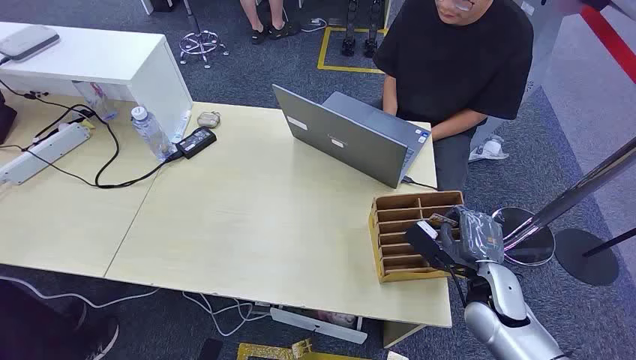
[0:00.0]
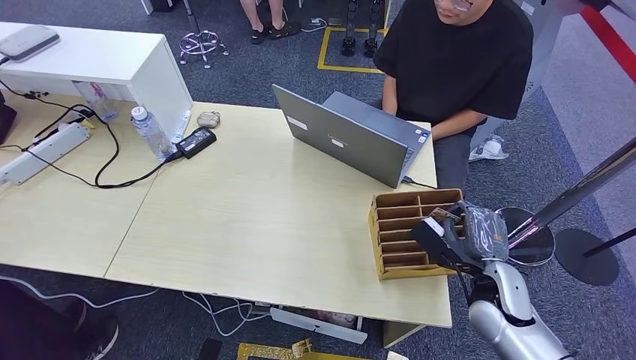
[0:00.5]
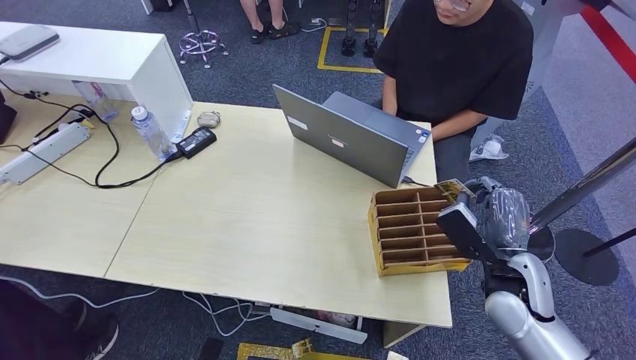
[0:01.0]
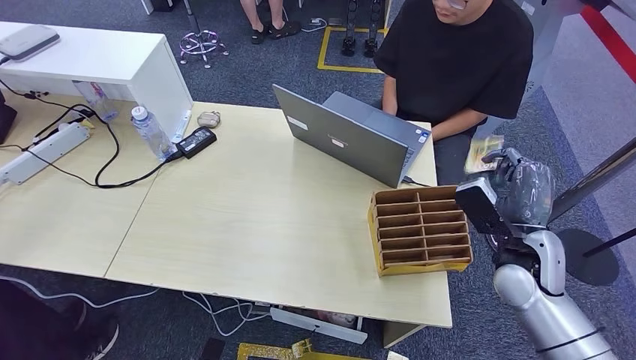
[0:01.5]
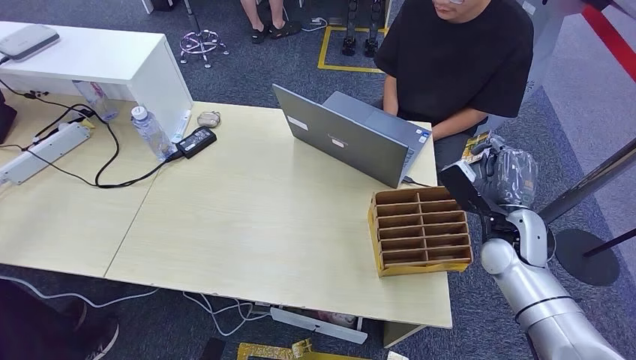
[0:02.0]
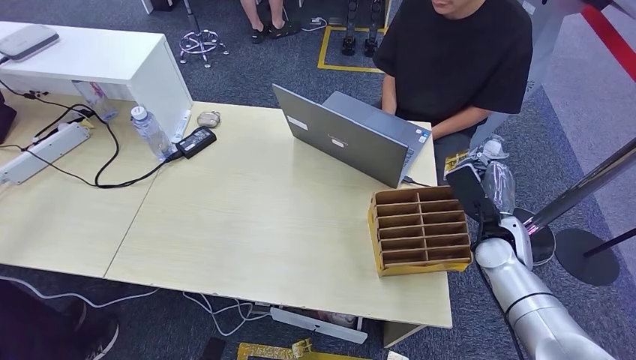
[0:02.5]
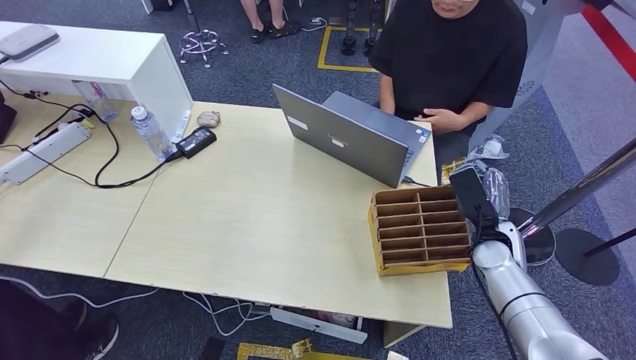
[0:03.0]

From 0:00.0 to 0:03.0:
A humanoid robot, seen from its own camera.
Step, from 0:00.0 to 0:01.5: Pick up the room card from the card holder.
Step, from 0:02.0 to 0:03.0: Hand the room card to the target.
From 0:01.5 to 0:03.0: The right hand shifts some 10 cm downward and forward.

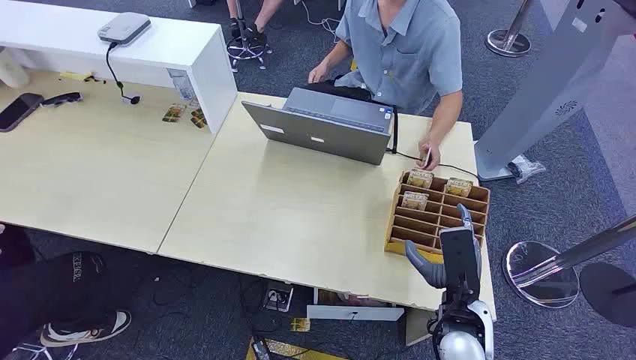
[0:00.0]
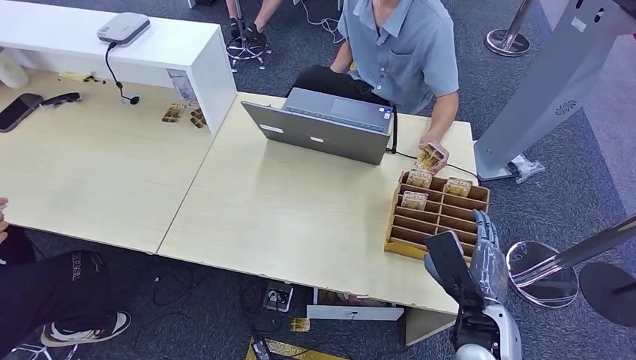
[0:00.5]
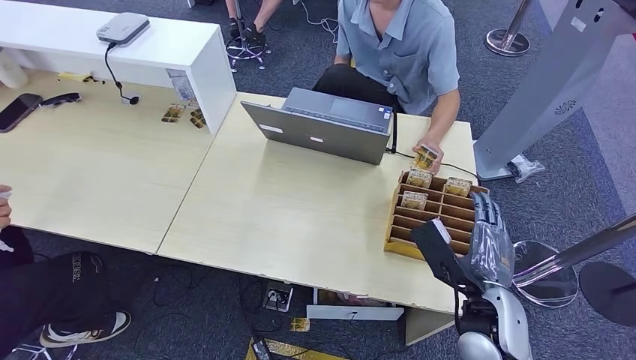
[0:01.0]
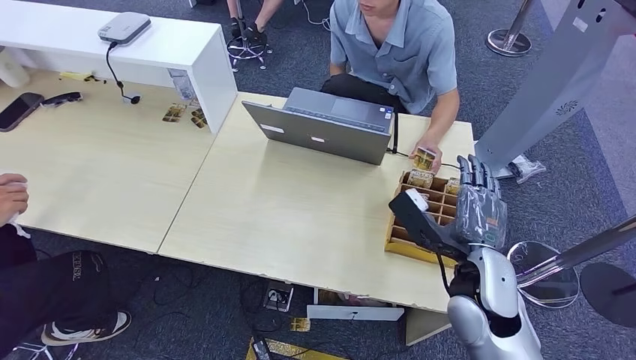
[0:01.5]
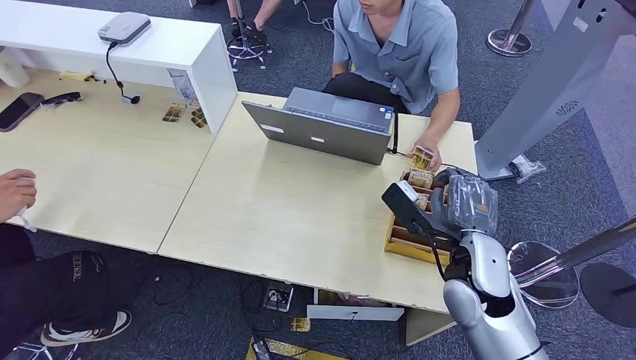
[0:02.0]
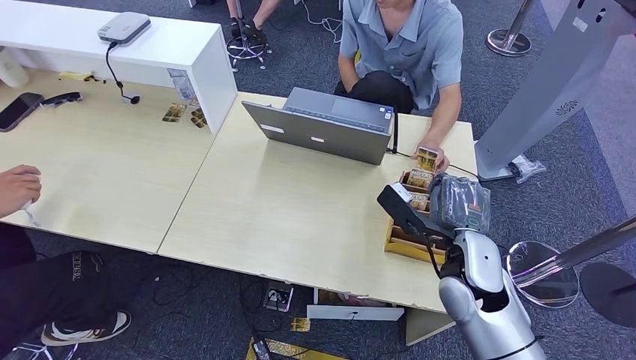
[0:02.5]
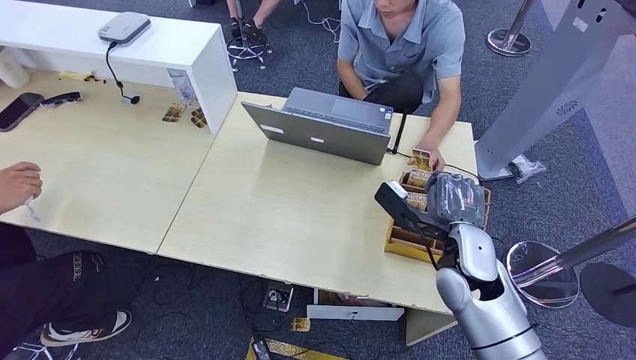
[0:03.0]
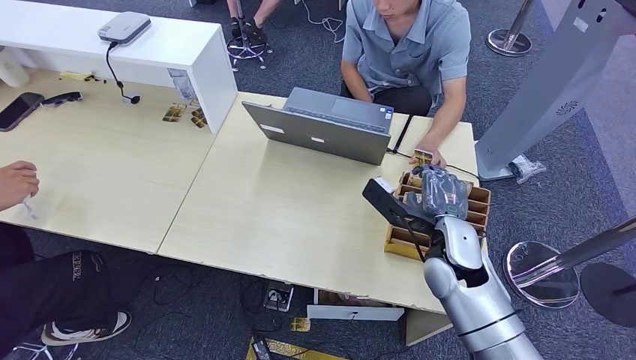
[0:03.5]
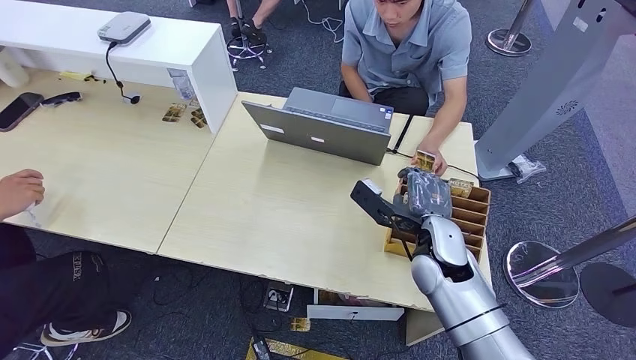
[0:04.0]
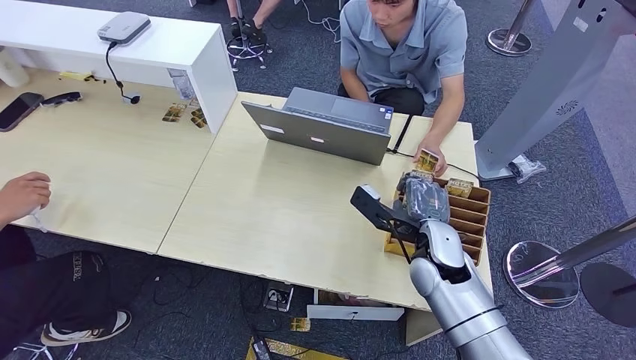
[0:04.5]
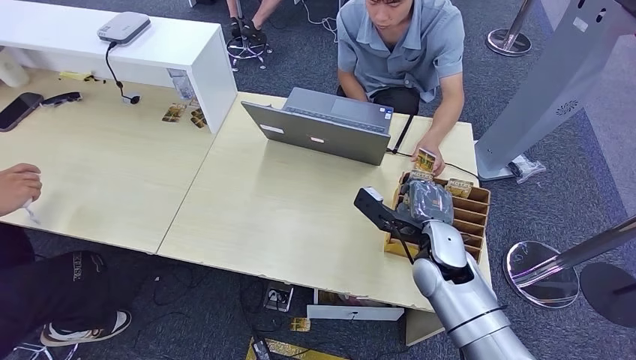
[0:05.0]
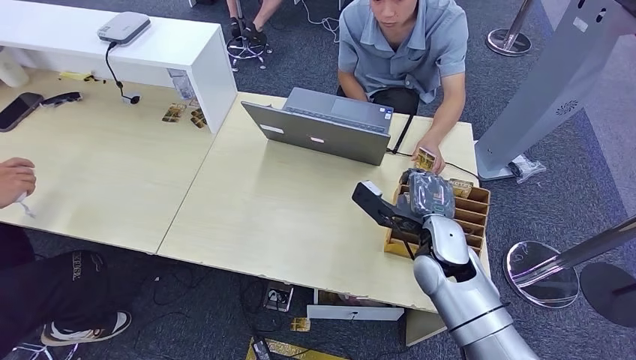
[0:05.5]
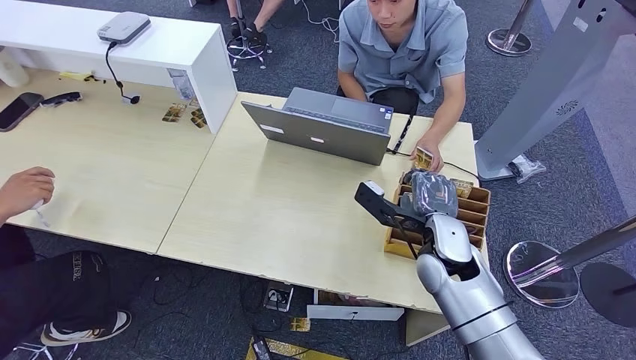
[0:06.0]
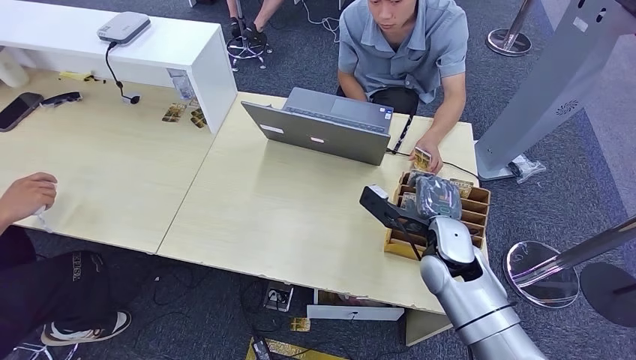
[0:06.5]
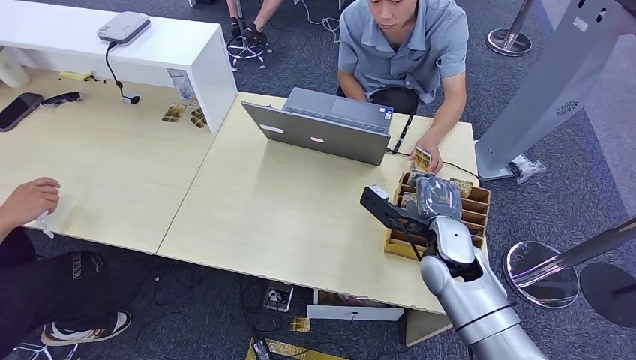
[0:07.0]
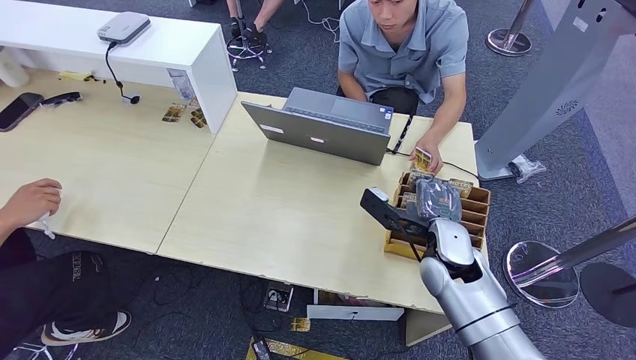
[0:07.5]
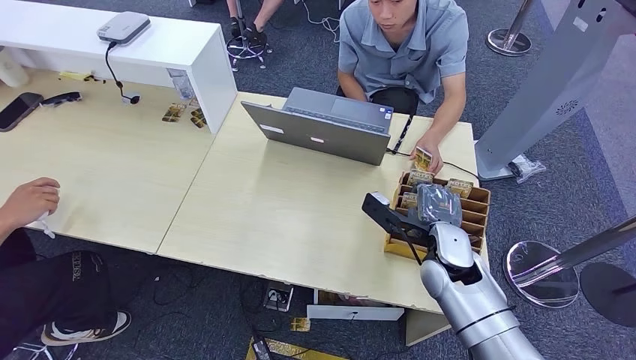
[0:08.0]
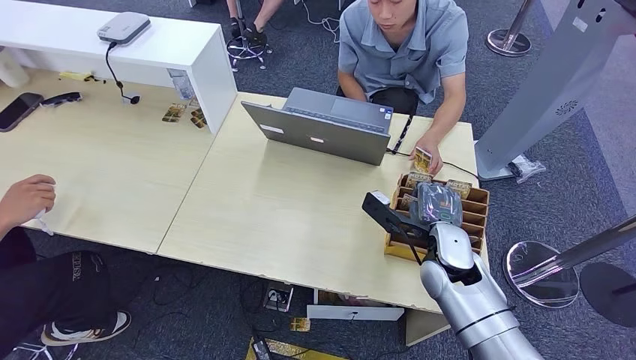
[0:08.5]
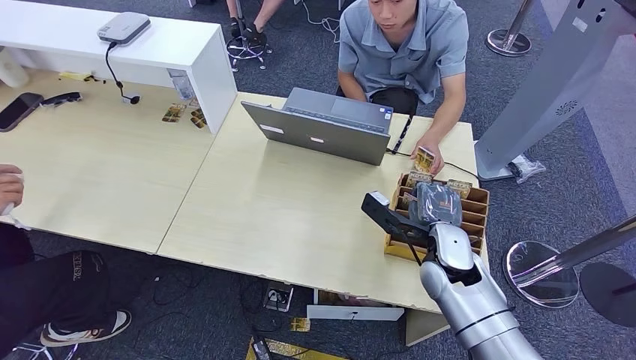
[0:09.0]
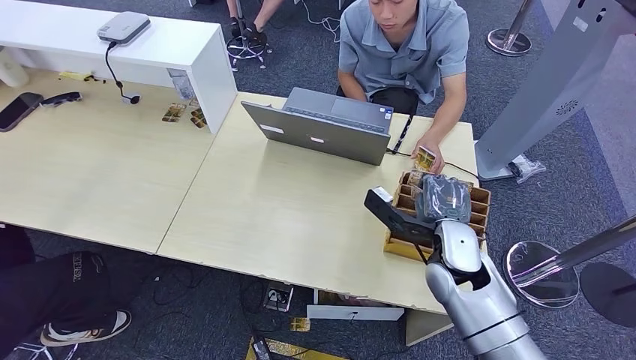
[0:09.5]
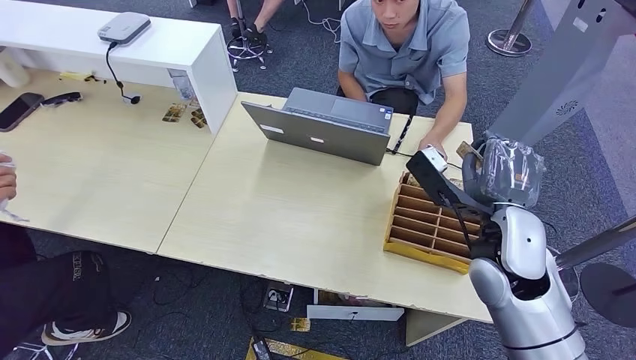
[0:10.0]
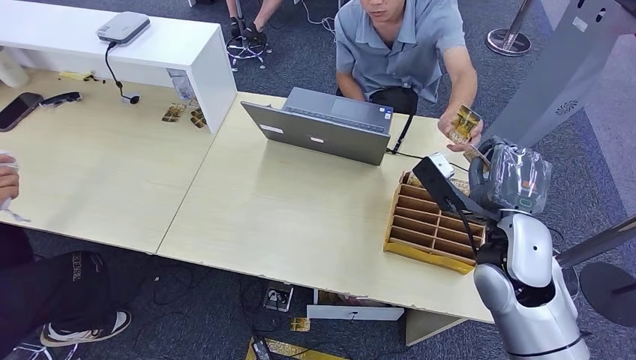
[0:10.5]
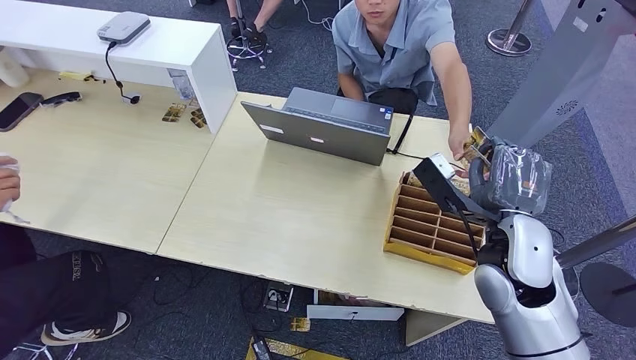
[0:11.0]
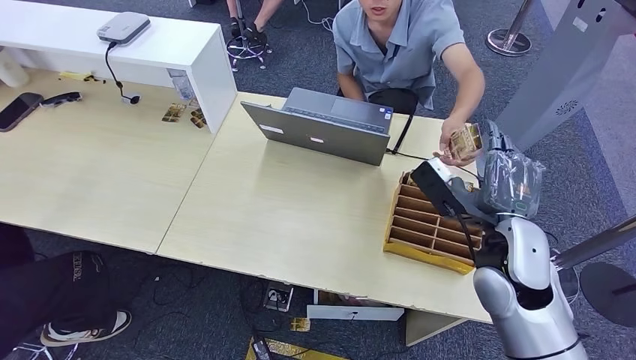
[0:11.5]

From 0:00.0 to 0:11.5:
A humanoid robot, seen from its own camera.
Step, from 0:00.0 to 0:10.5: Pick up the room card from the card holder.
Step, from 0:11.0 to 0:11.5: Hand the room card to the target.
From 0:02.0 to 0:04.0: The right hand changes place by approximately 5 cm.
From 0:04.0 to 0:09.5: The hands make only small movements.
From 0:09.5 to 0:11.5: The right hand shifts some 5 cm upward.

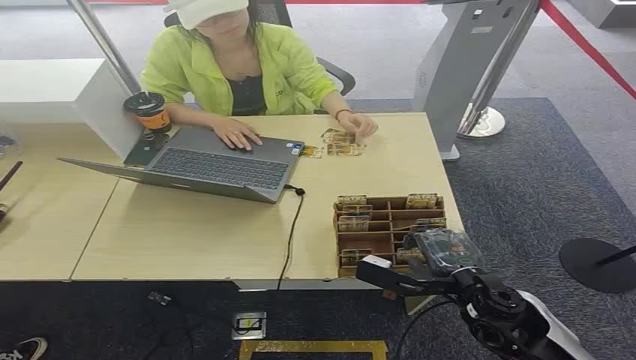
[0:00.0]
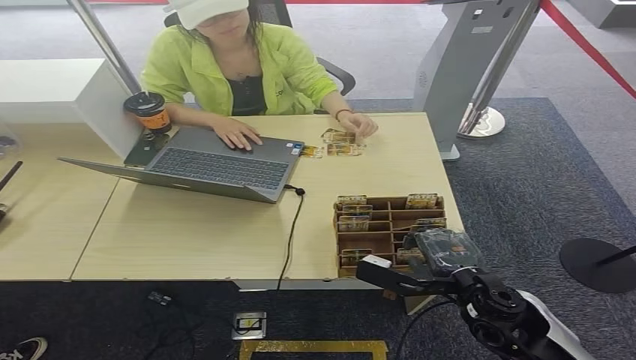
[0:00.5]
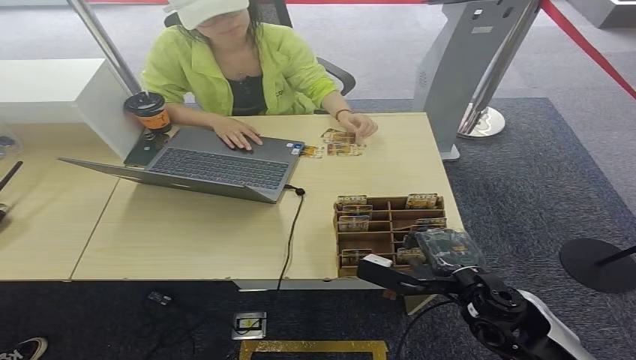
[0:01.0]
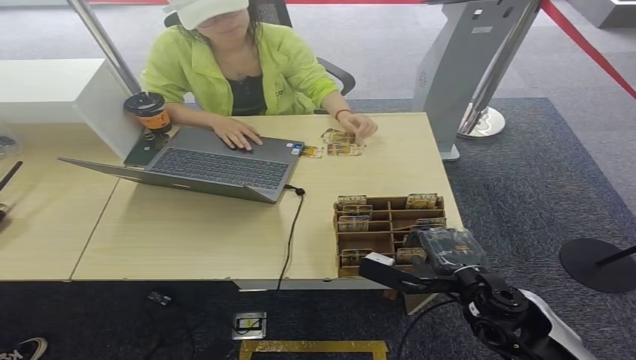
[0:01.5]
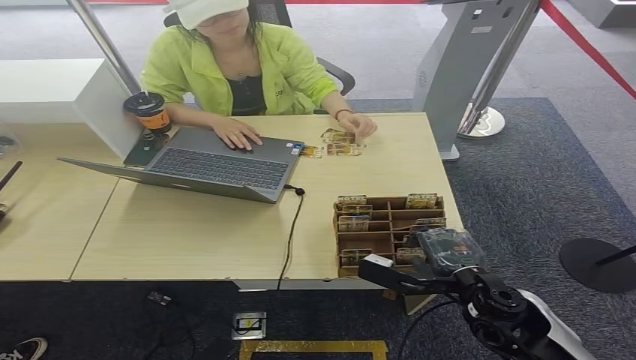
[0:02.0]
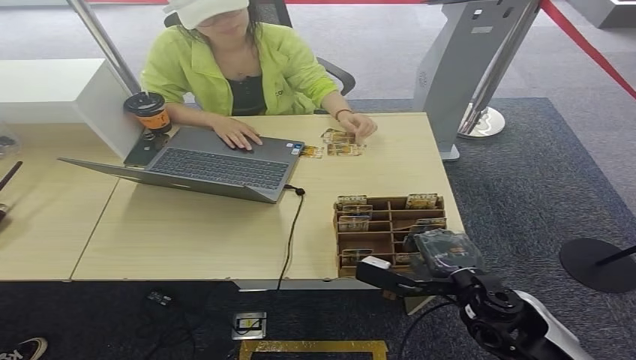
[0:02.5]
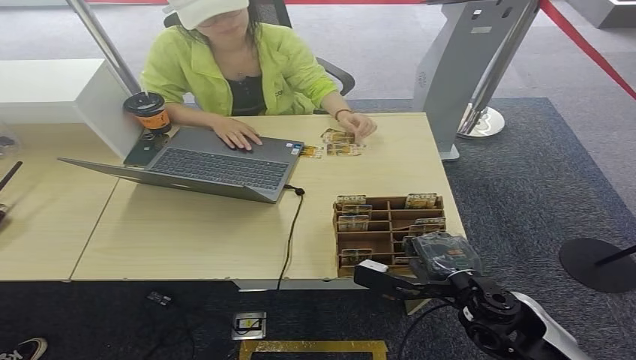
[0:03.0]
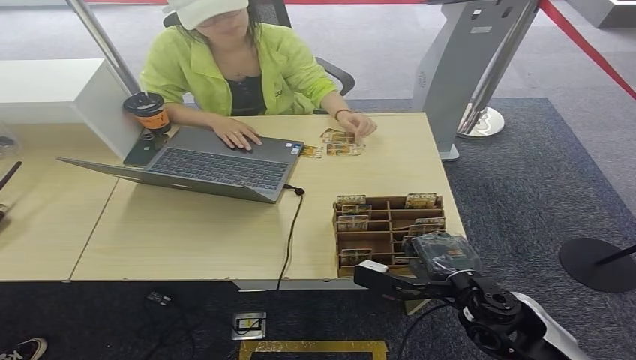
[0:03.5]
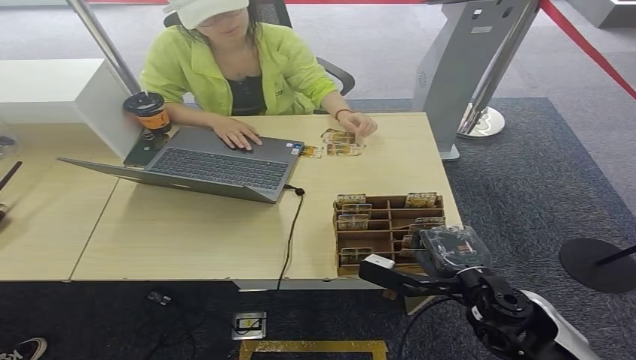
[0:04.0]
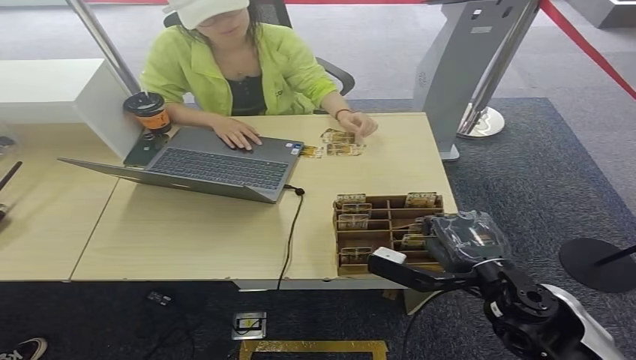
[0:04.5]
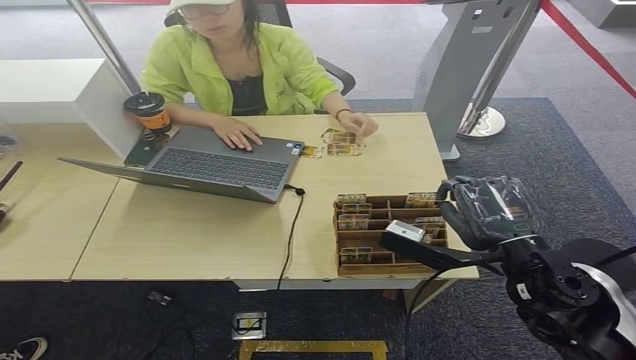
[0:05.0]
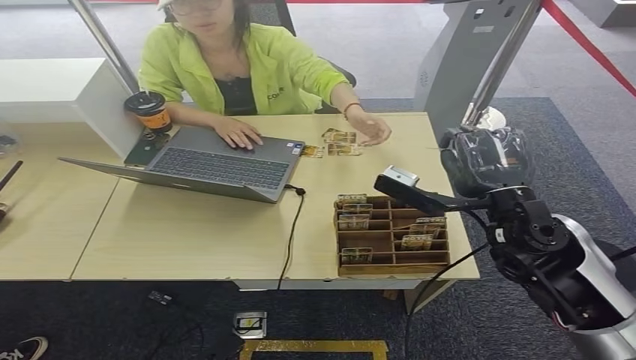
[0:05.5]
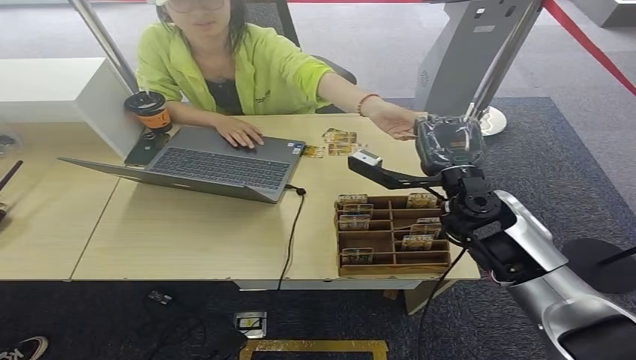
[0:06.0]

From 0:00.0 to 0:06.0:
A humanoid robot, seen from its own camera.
Step, from 0:00.0 to 0:03.5: Pick up the room card from the card holder.
Step, from 0:04.0 to 0:06.0: Hand the room card to the target.
From 0:02.0 to 0:04.0: The two hands keep their place.
From 0:04.0 to 0:06.0: The right hand goes some 15 cm forward and upward.
